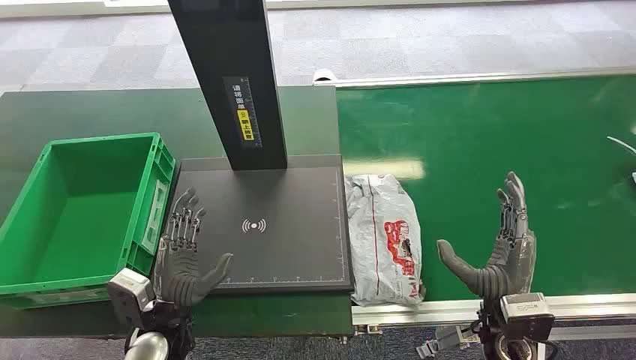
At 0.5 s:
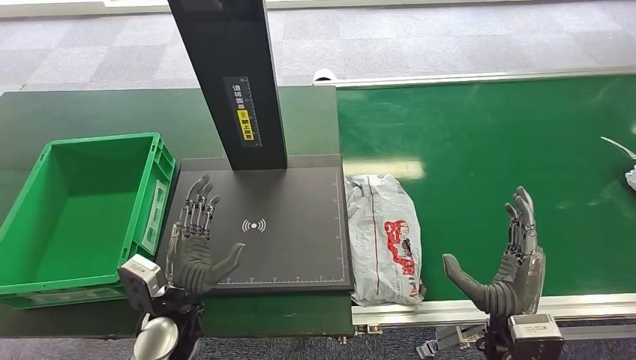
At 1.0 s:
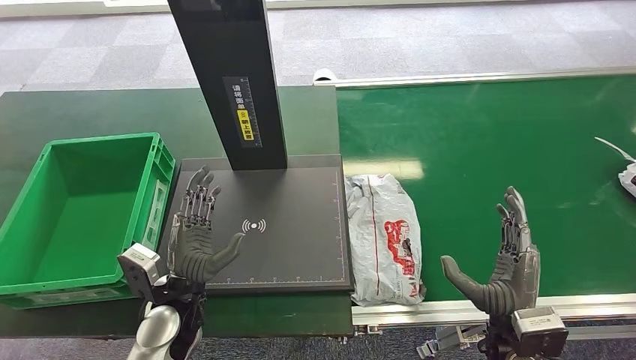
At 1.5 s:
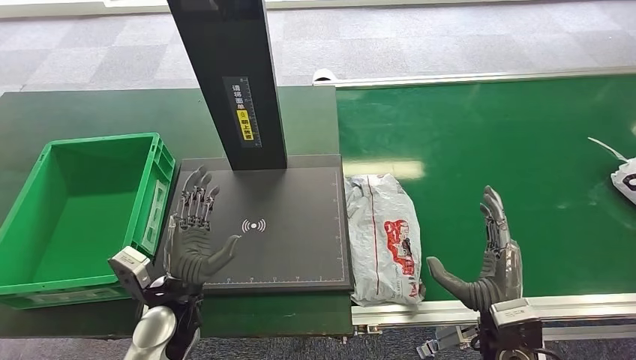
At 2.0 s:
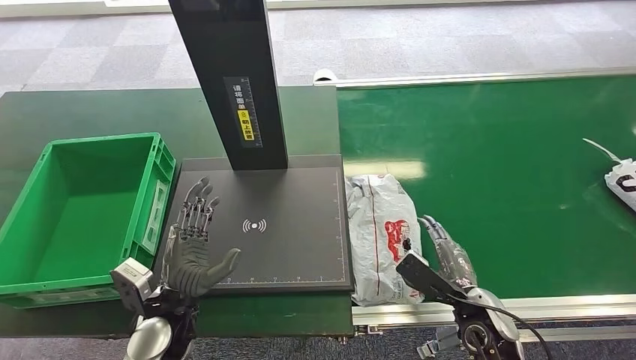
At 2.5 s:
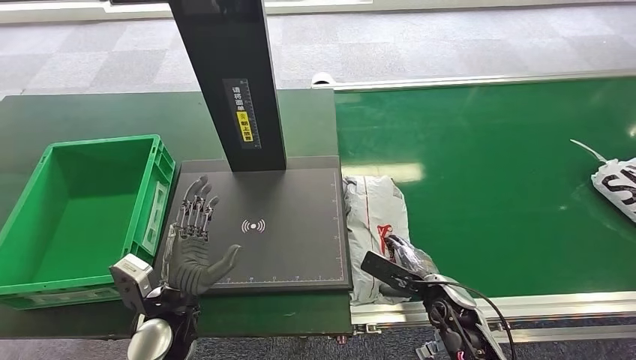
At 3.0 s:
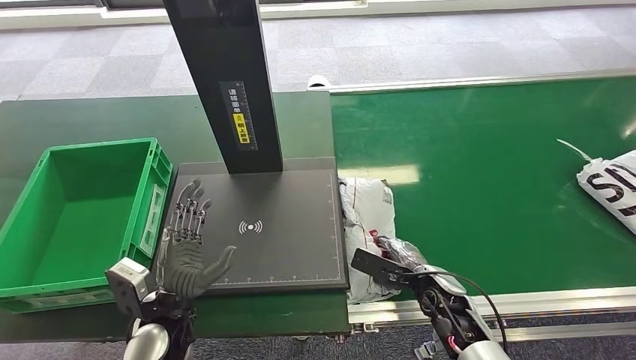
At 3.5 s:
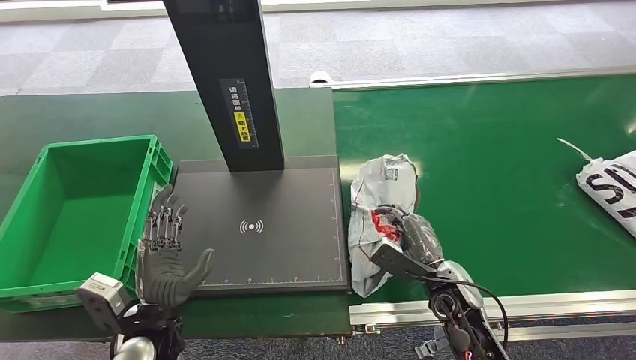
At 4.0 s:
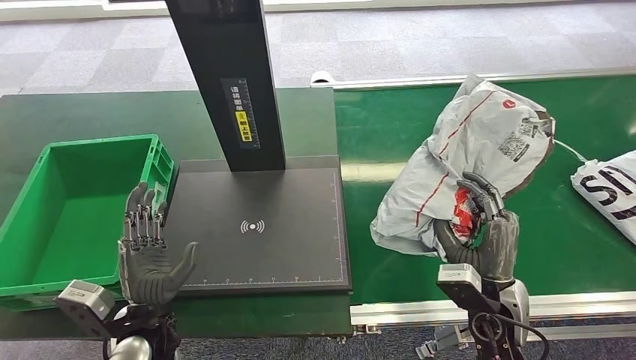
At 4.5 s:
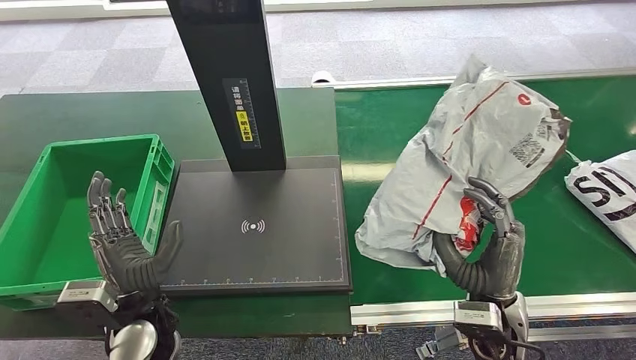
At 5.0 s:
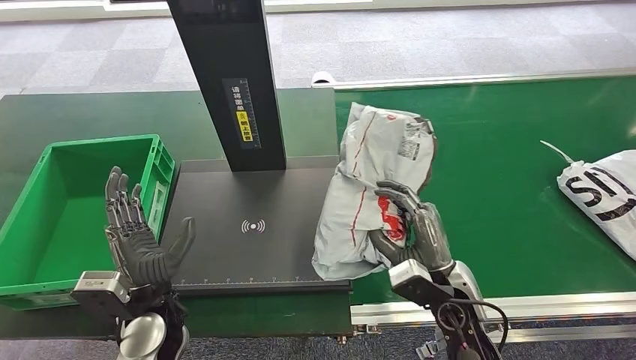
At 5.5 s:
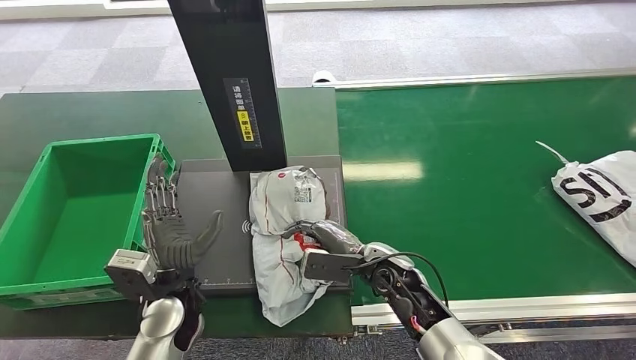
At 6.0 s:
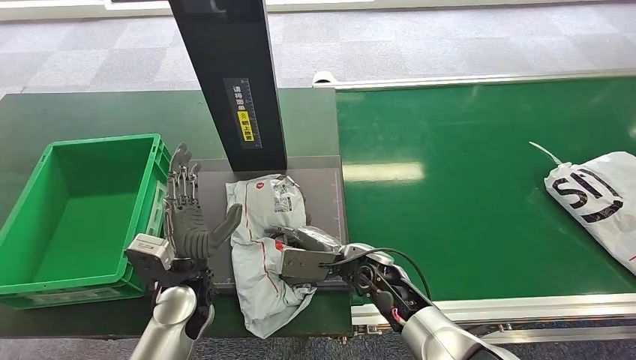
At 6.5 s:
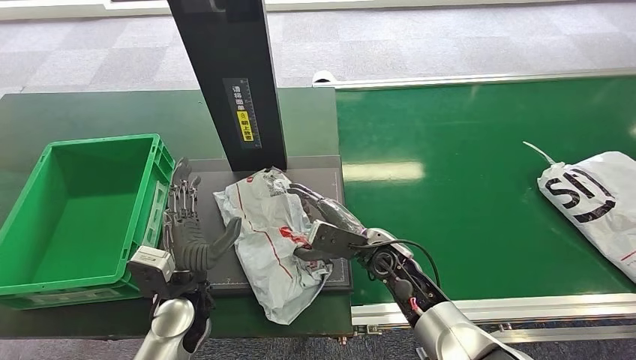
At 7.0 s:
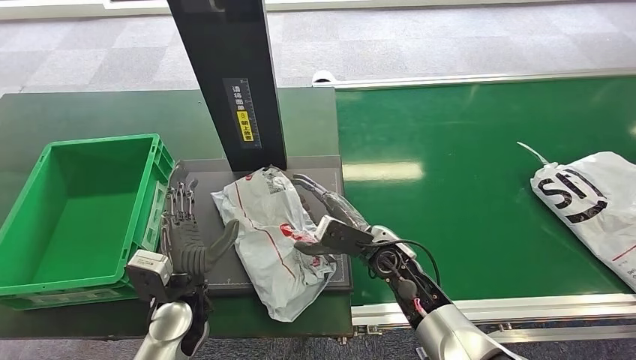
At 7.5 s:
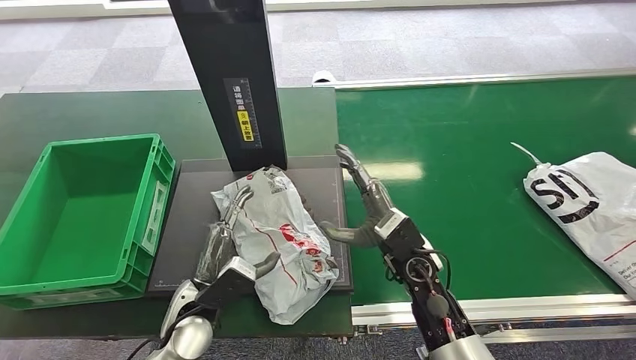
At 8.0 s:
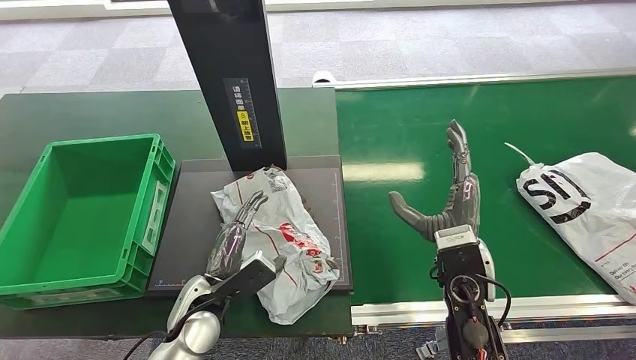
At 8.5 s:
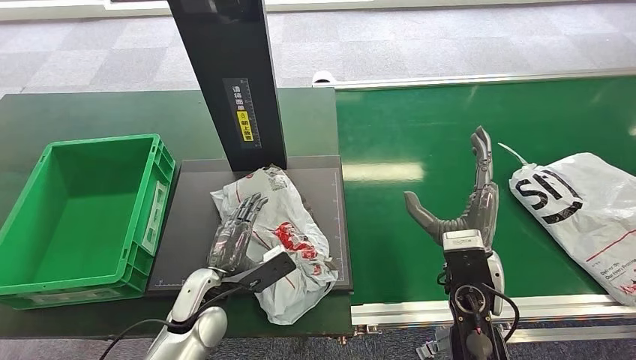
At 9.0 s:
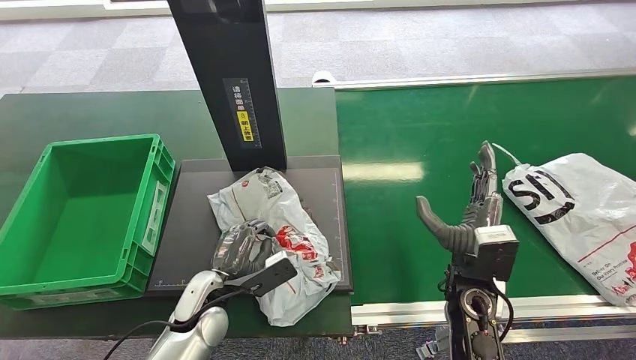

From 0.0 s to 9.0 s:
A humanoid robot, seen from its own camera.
Step, from 0.0 s to 3.5 s: Pick up the package from the conveyor belt.
Step, from 4.0 s to 6.5 s: Place the package onto the inbound machine.
From 7.0 s to 9.0 s: The right hand heads to the right and backward, covering approximately 10 cm.

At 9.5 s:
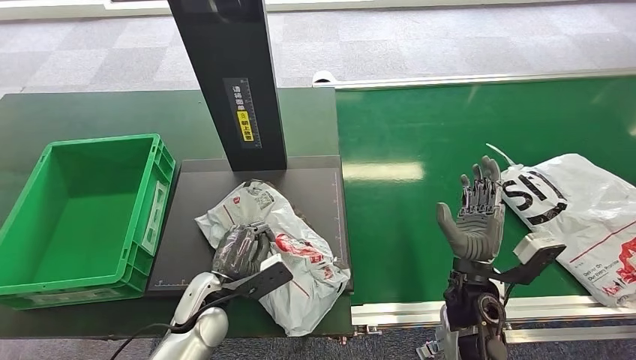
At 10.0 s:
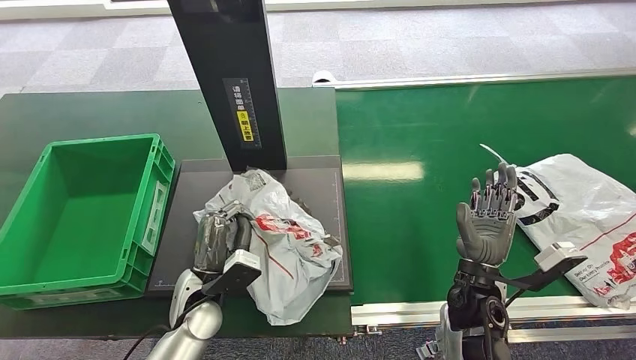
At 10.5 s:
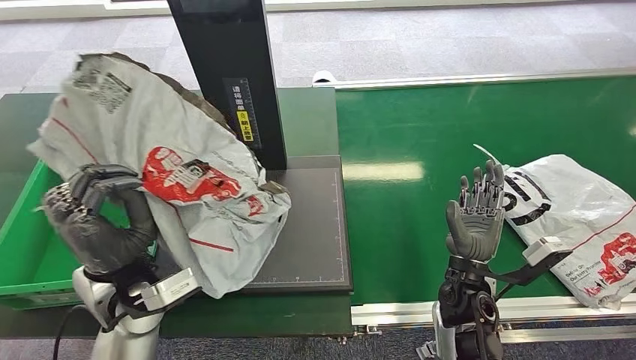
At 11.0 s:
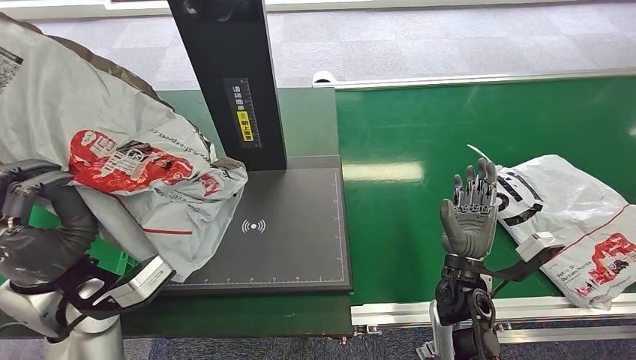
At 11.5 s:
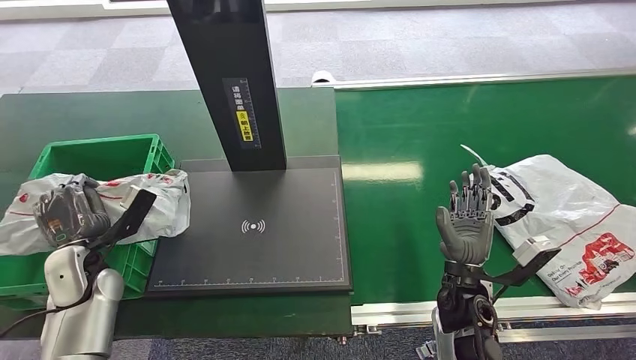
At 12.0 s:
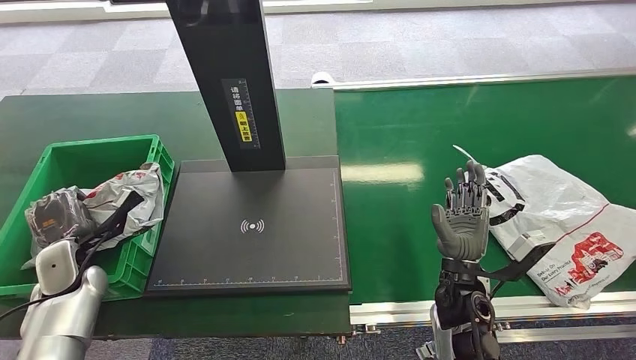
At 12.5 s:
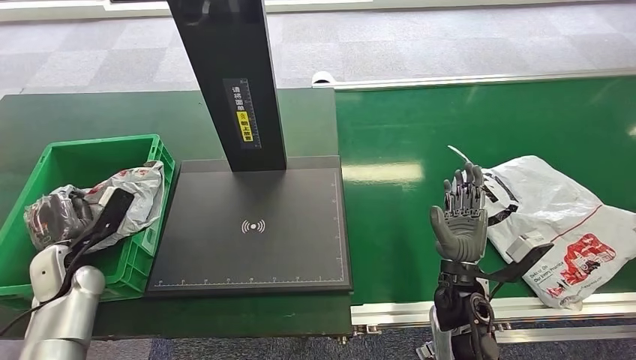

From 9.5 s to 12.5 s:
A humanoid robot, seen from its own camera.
Step, from 10.5 s to 12.5 s: Place the package into the parcel locker.

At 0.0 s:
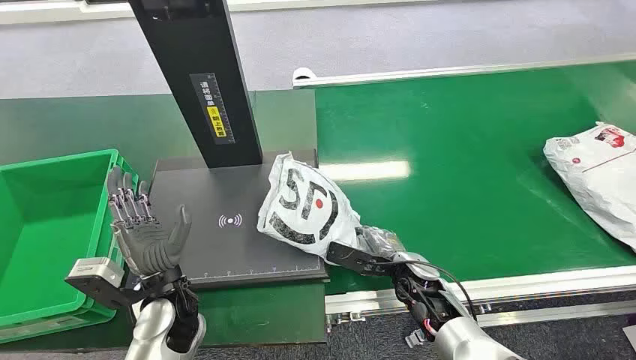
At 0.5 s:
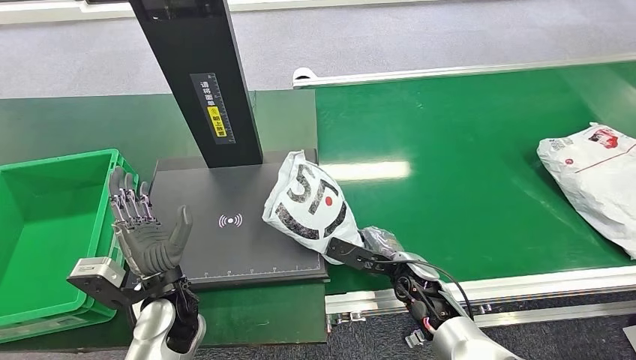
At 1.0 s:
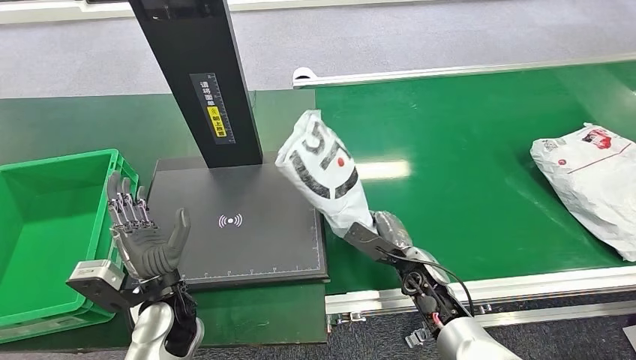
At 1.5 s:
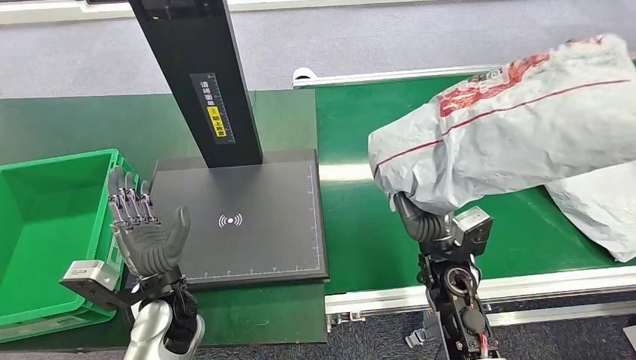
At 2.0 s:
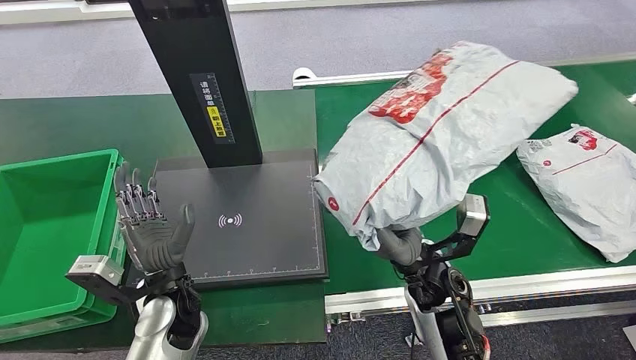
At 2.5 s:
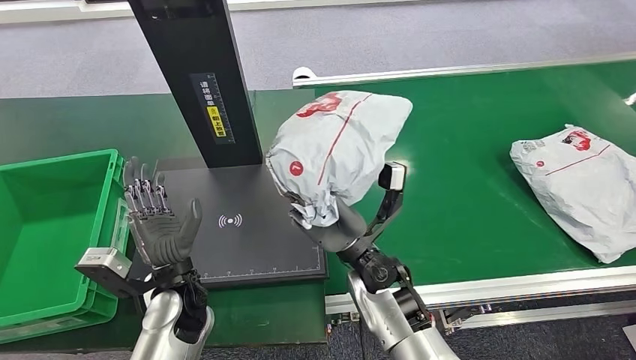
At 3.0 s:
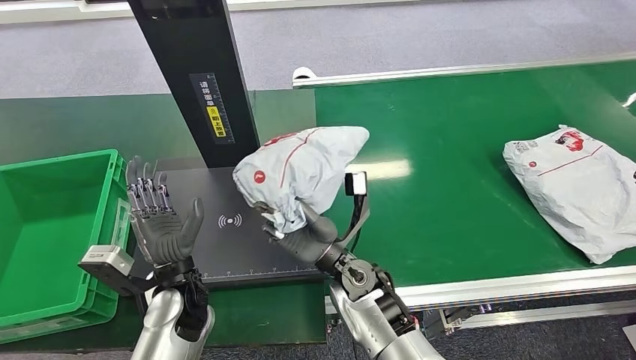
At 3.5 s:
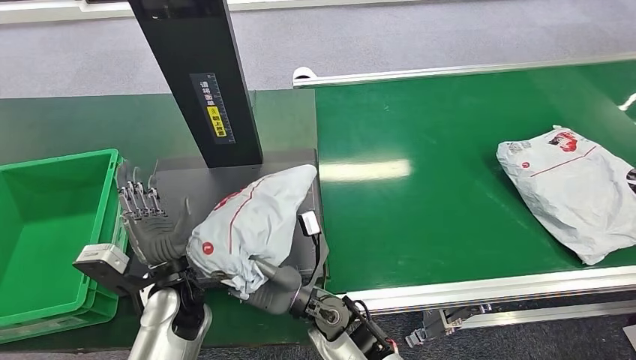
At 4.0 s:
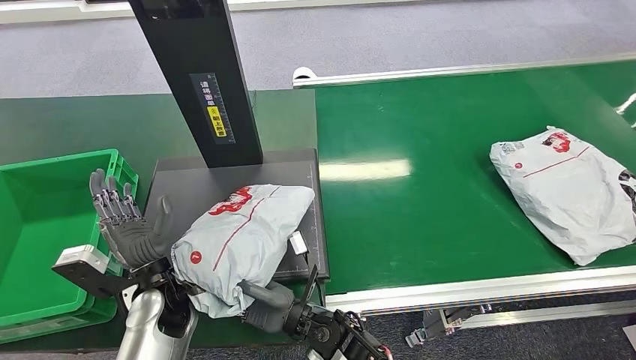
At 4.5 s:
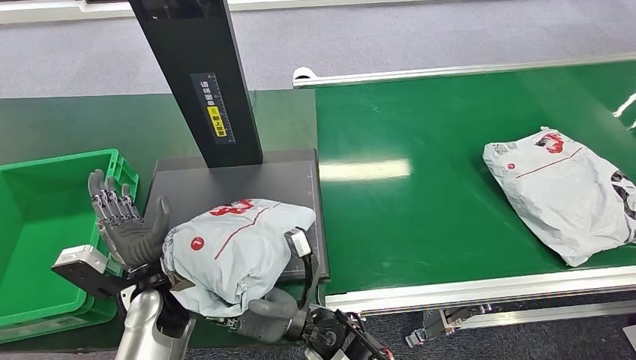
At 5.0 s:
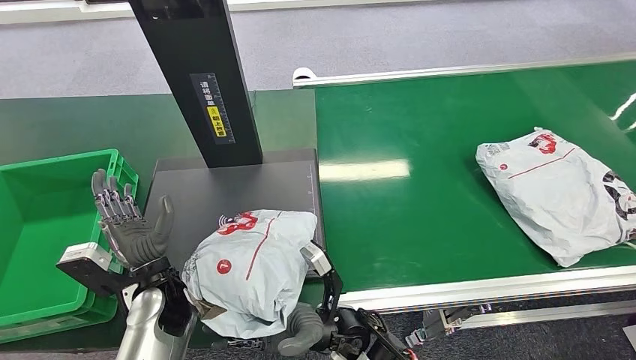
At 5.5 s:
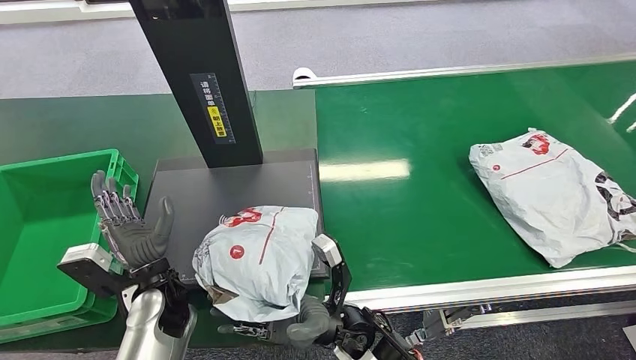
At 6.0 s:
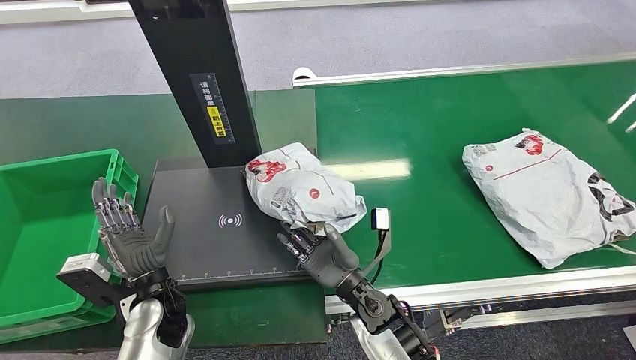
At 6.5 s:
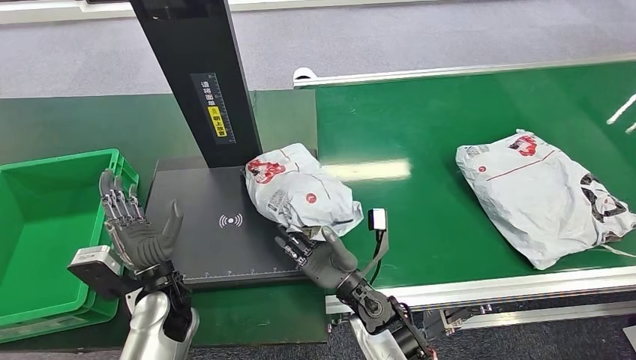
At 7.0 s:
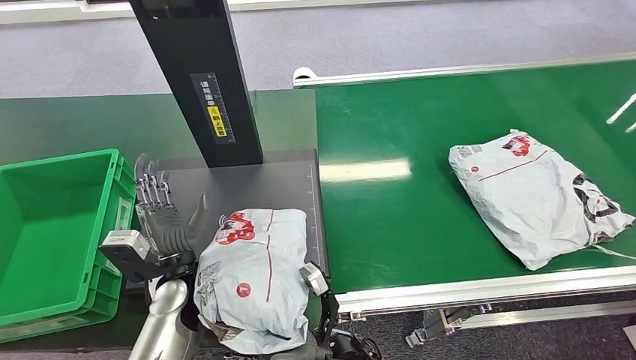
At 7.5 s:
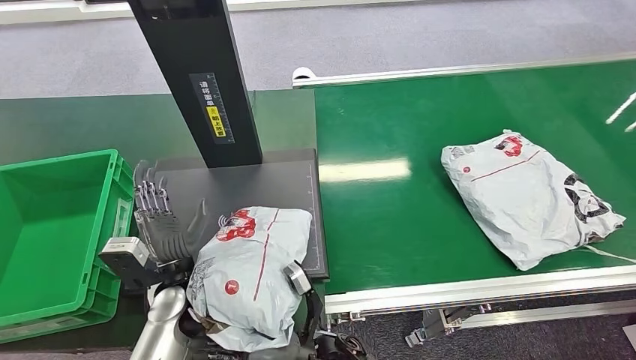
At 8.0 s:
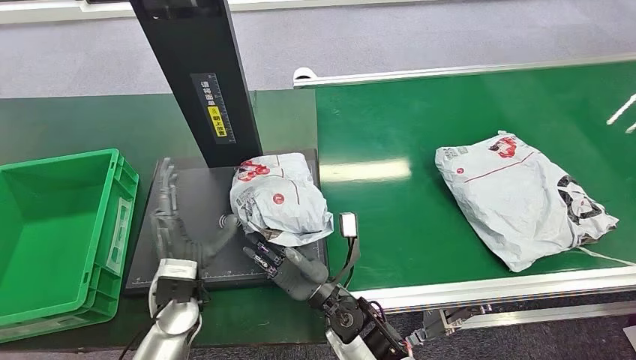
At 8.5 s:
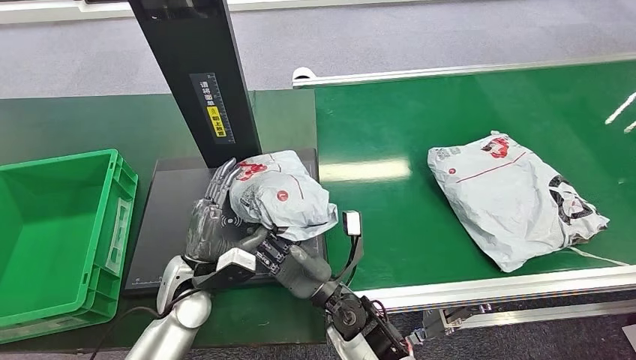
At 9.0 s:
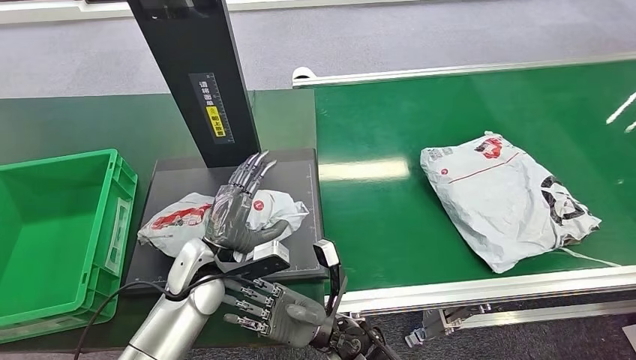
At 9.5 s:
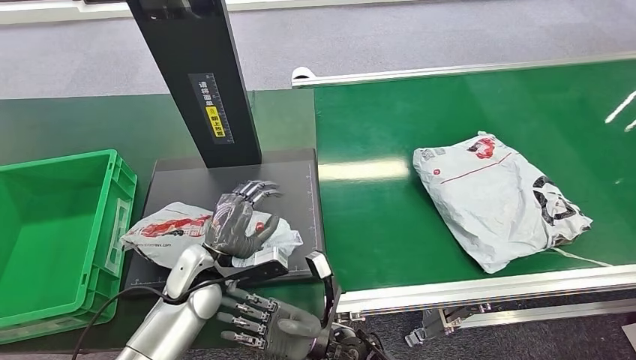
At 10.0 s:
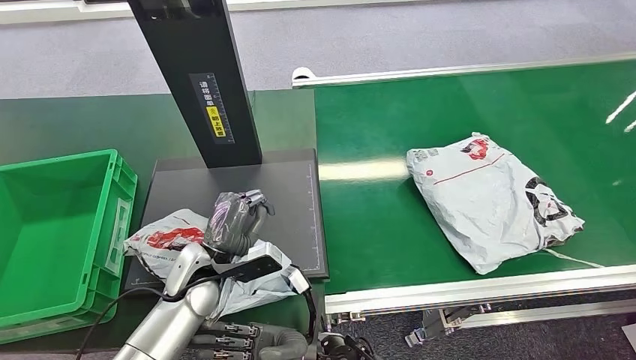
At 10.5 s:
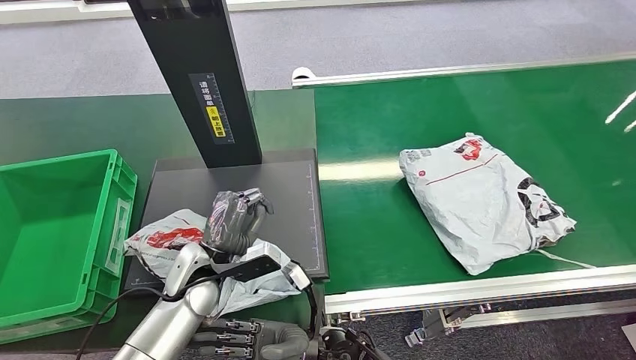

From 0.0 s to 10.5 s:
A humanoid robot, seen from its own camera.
Step, from 0.0 s to 2.0 s: Pick up the package from the conveyor belt.
Step, from 2.5 s to 8.5 s: Place the package onto the inbound machine.
